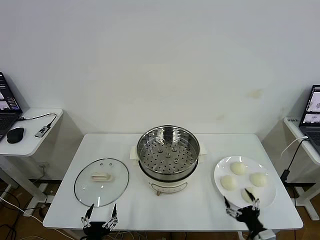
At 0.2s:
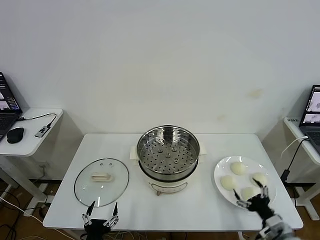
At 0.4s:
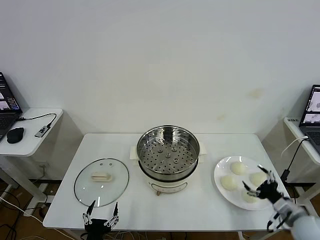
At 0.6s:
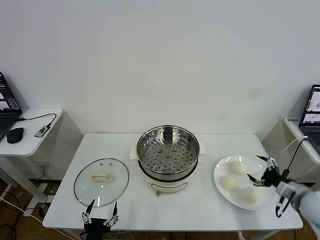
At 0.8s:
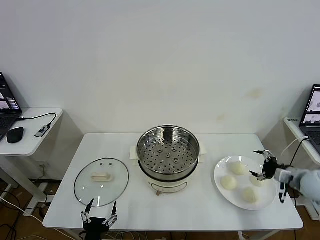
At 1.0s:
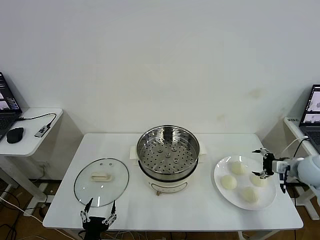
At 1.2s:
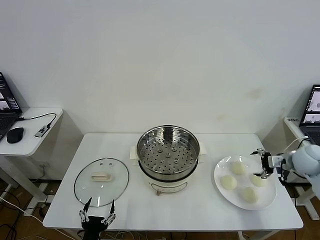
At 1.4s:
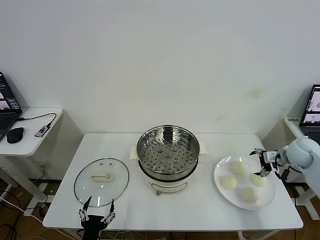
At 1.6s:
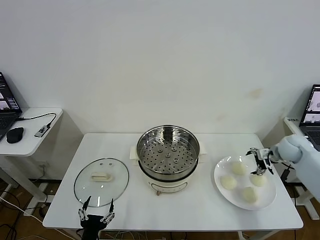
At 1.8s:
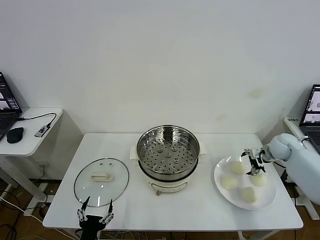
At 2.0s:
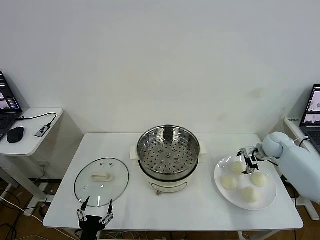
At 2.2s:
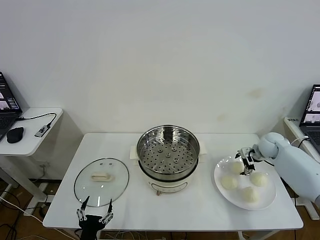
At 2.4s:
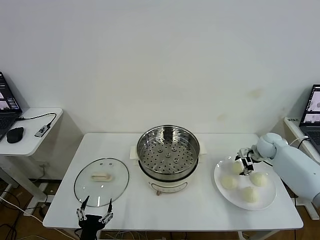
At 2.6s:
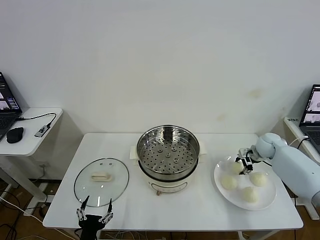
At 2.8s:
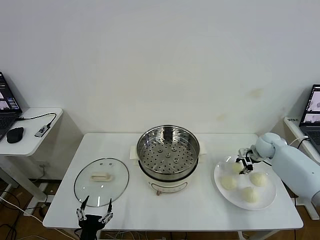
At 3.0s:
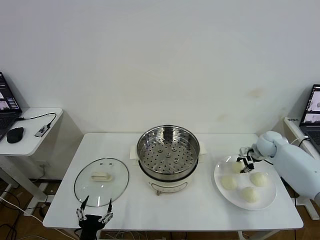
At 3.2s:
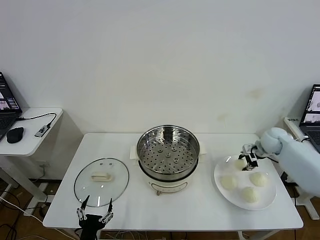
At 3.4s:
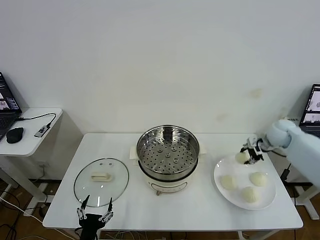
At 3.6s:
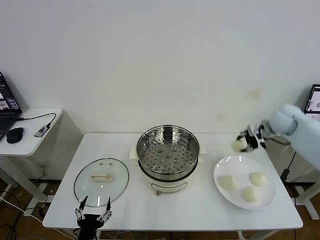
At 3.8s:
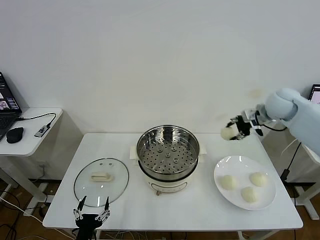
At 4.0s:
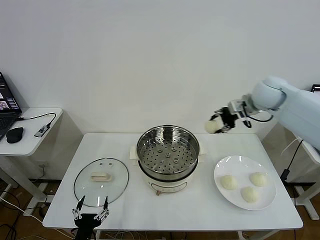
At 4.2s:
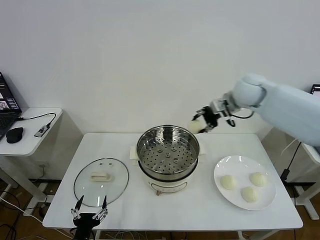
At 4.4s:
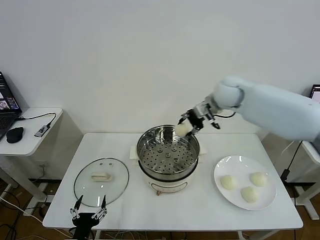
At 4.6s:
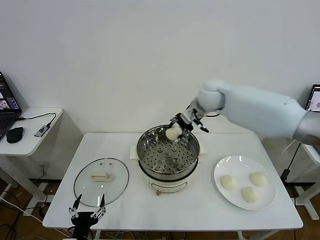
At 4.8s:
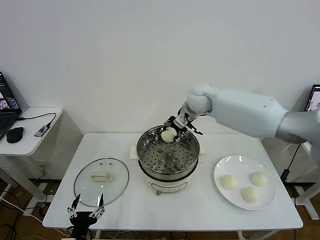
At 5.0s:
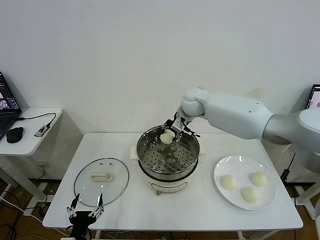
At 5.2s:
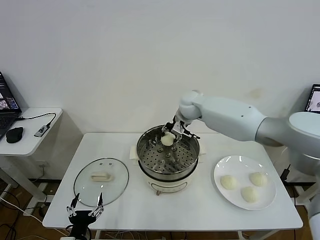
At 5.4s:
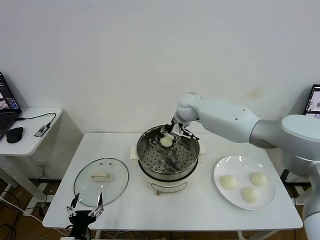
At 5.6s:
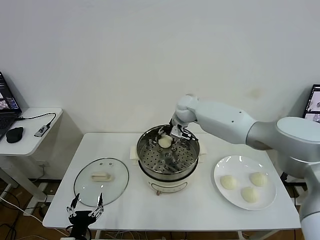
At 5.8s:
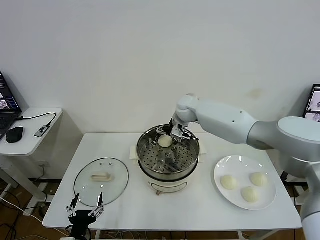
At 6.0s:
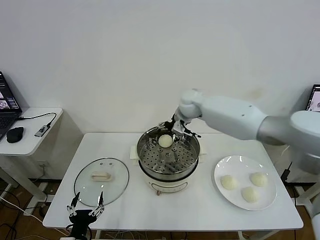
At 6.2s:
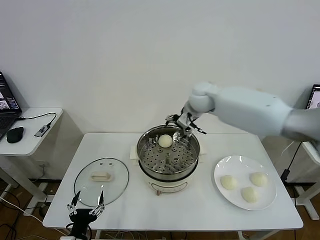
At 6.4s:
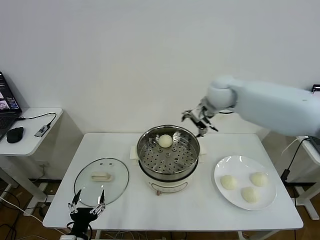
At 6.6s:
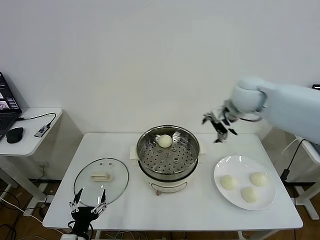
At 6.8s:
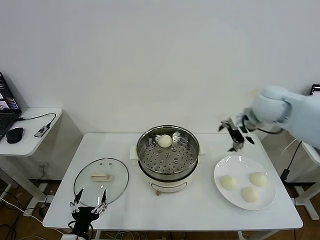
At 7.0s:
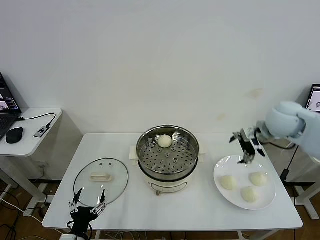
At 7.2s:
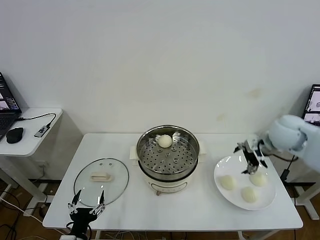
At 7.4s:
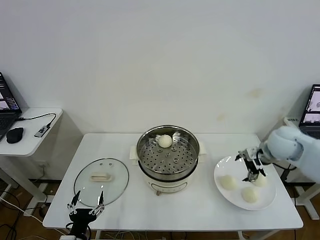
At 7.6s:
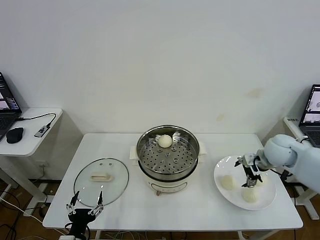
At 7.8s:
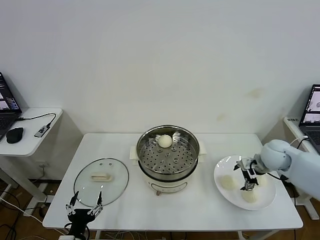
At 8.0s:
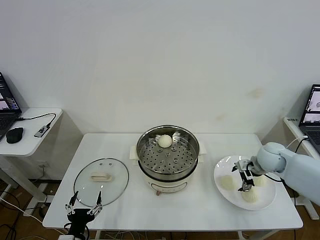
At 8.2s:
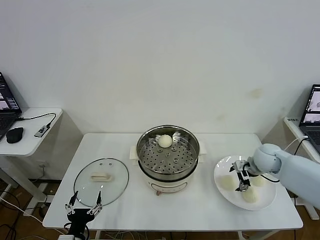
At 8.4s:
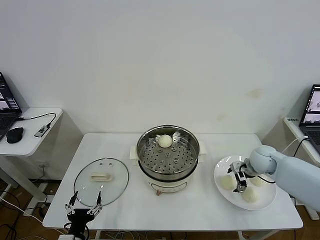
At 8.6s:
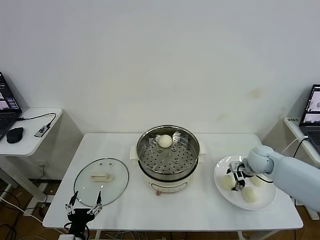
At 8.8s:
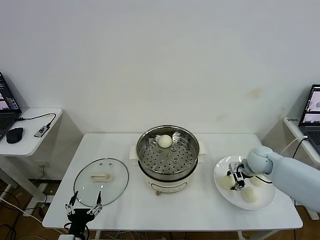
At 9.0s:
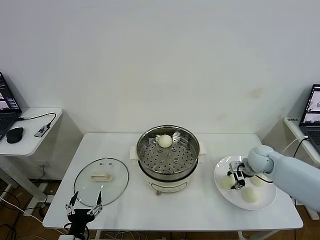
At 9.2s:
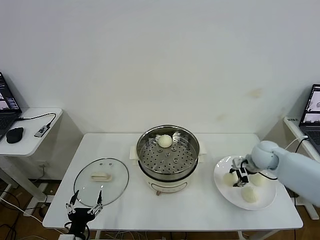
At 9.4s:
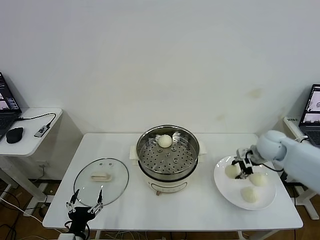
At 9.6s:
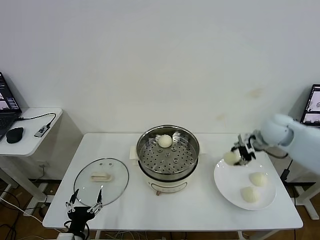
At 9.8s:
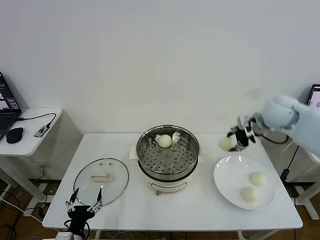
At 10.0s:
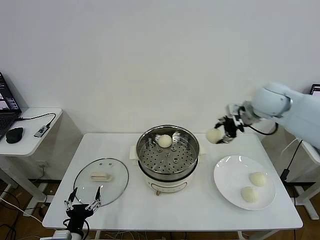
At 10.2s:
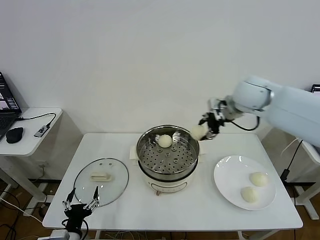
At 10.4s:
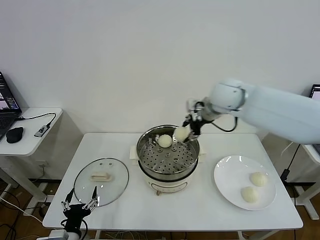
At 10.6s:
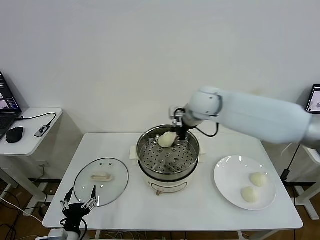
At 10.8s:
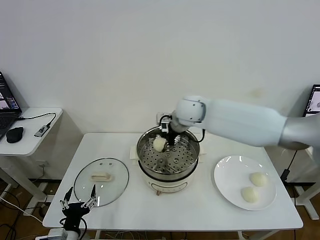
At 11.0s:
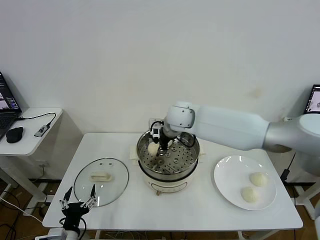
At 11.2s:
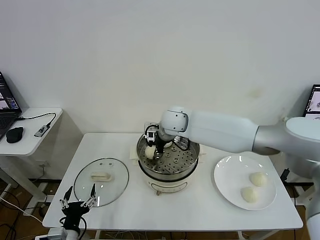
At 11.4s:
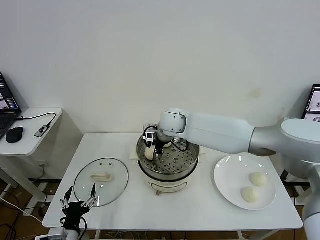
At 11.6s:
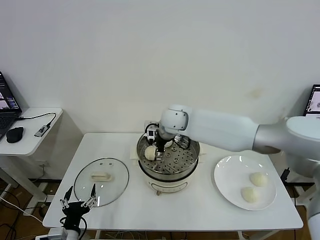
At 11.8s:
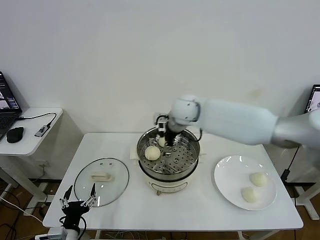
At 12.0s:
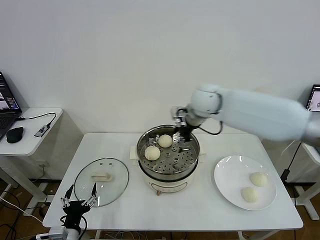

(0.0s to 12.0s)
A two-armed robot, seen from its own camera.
Task of the whole recording: take steamed baozi put them in steamer then cover it.
Step, 0.0s - 2.6s: Grasp the baozi in the plate with right gripper.
Step, 3.0s - 5.8s: Place the baozi on the steamer with right gripper.
Step, 6.0s - 8.8s: Grasp the baozi in the plate with right gripper.
Step, 9.0s - 11.4s: Place the baozi on the steamer with right gripper.
1.6s - 3.0s: The right gripper closes up.
3.0s - 4.4s: The right gripper goes approximately 30 cm to the left and upward.
4.4s - 6.0s: The right gripper opens its fingers.
6.0s - 7.6s: The right gripper heads to the right, backward and downward, covering roughly 30 cm.
7.6s - 9.0s: The right gripper travels downward by approximately 5 cm, and closes its fingers.
9.0s - 10.4s: The right gripper moves upward and to the left, approximately 30 cm.
10.4s - 12.0s: The right gripper goes to the left and returns, about 10 cm each way, and opens up.

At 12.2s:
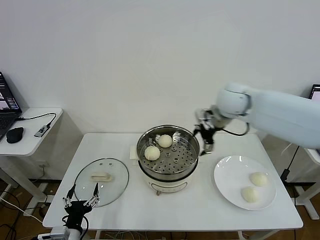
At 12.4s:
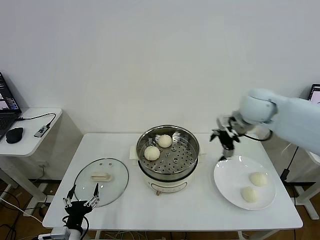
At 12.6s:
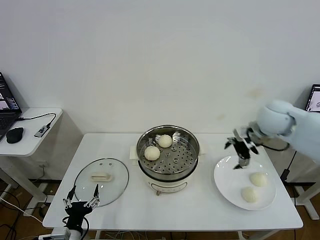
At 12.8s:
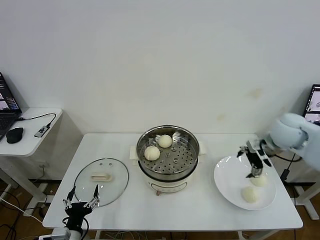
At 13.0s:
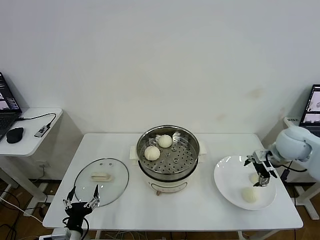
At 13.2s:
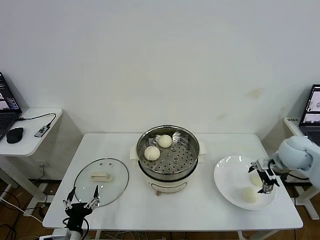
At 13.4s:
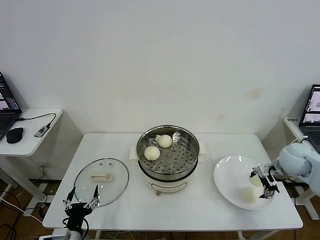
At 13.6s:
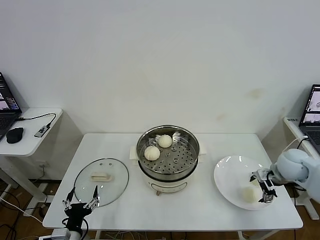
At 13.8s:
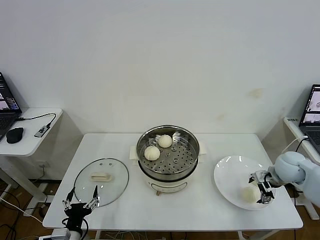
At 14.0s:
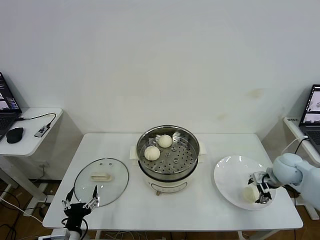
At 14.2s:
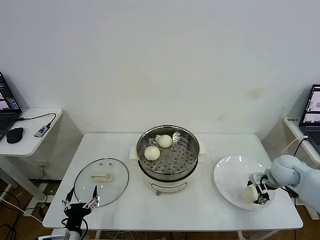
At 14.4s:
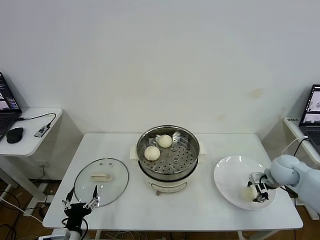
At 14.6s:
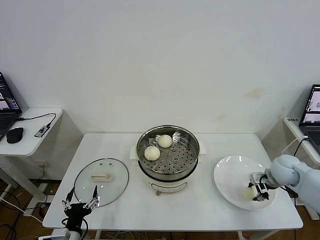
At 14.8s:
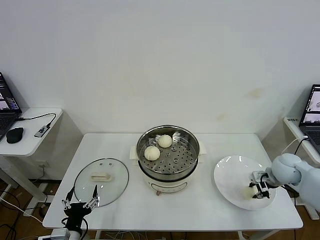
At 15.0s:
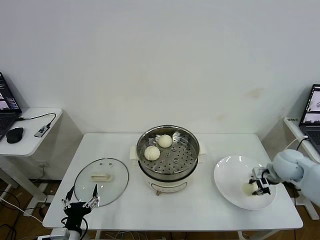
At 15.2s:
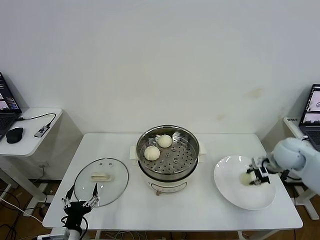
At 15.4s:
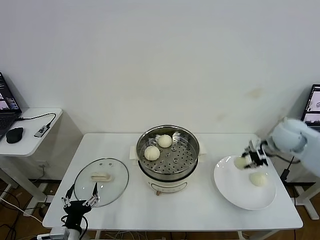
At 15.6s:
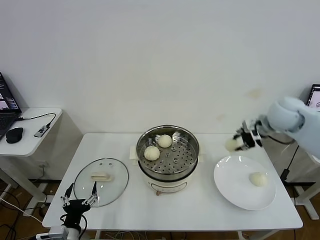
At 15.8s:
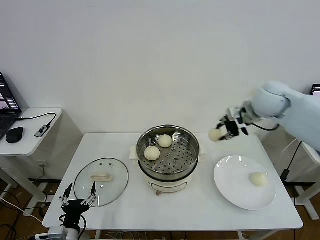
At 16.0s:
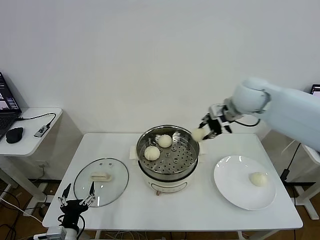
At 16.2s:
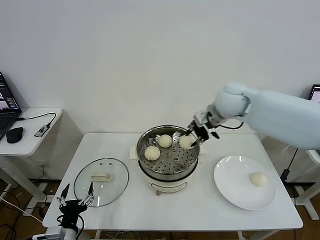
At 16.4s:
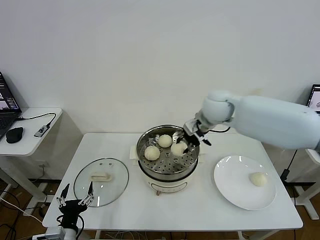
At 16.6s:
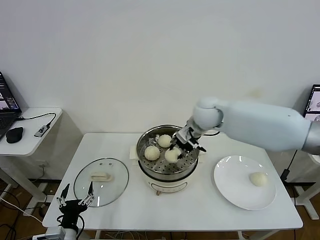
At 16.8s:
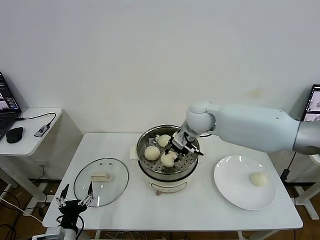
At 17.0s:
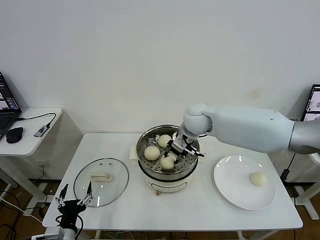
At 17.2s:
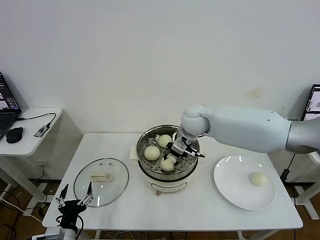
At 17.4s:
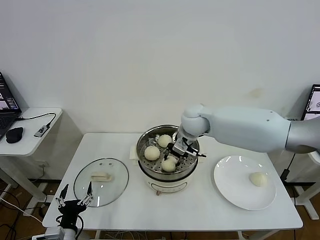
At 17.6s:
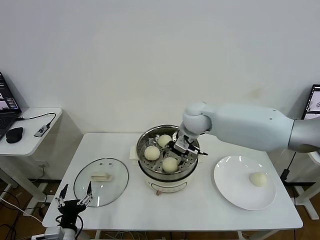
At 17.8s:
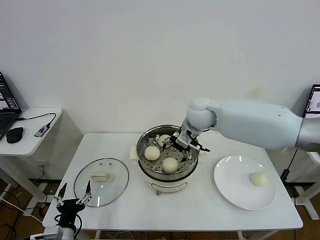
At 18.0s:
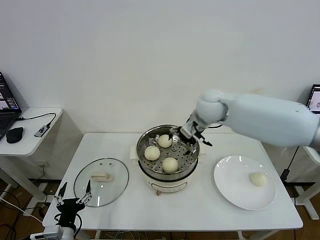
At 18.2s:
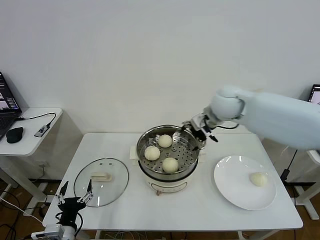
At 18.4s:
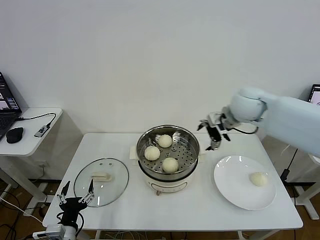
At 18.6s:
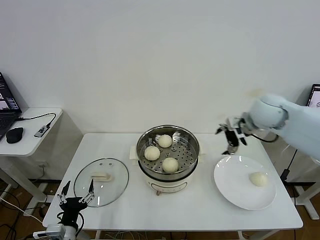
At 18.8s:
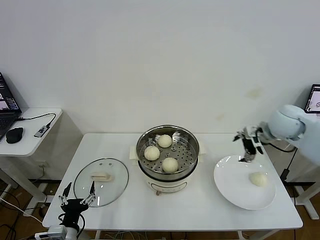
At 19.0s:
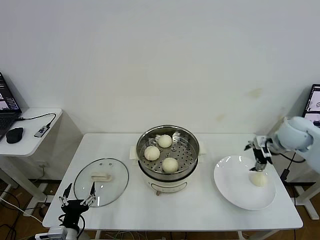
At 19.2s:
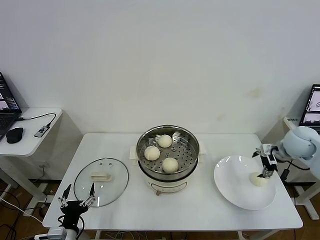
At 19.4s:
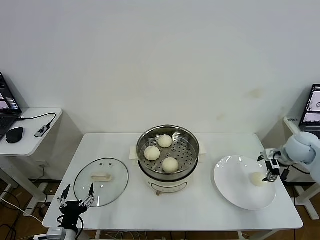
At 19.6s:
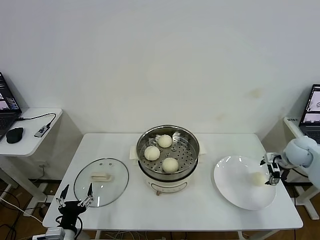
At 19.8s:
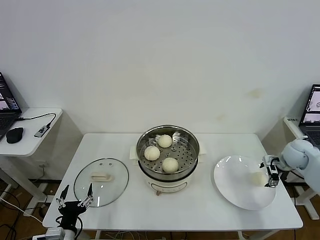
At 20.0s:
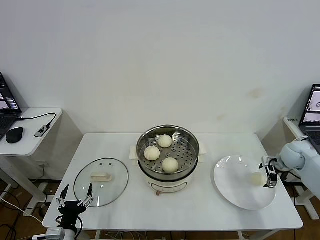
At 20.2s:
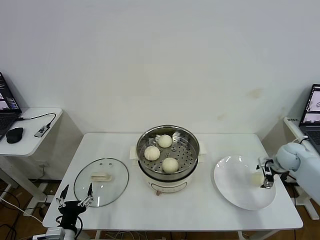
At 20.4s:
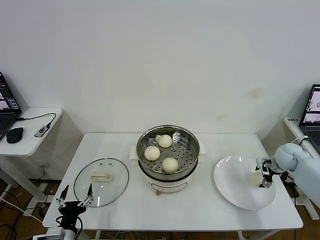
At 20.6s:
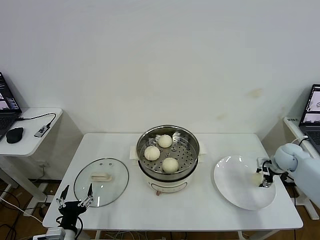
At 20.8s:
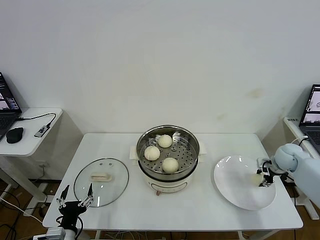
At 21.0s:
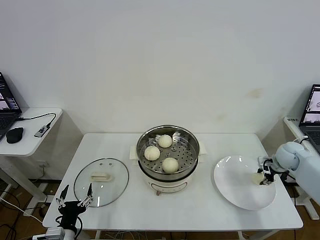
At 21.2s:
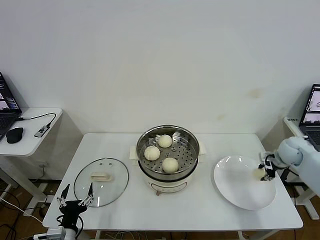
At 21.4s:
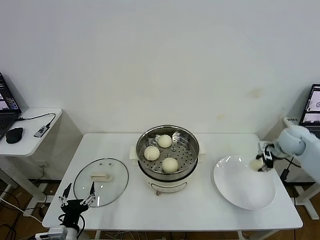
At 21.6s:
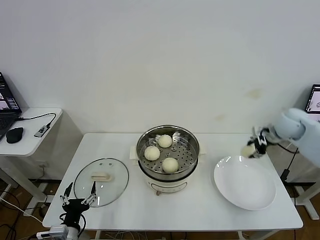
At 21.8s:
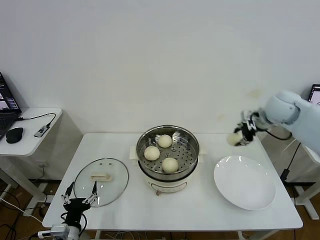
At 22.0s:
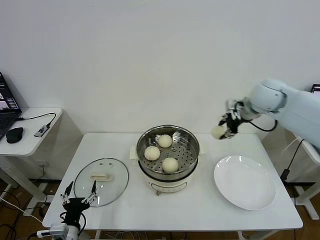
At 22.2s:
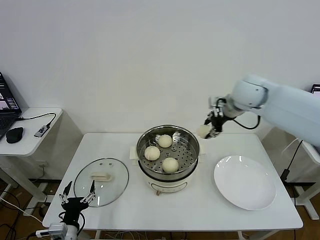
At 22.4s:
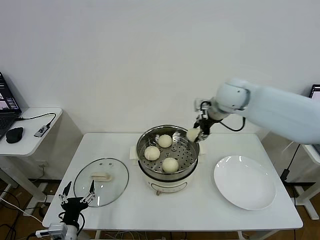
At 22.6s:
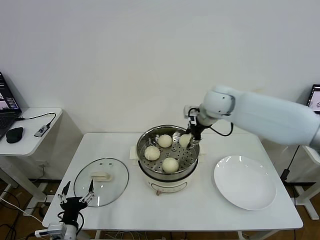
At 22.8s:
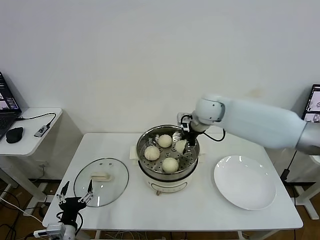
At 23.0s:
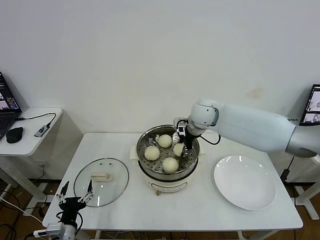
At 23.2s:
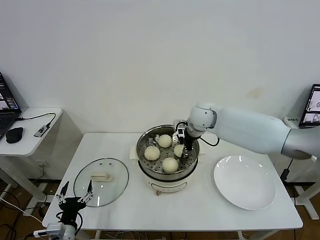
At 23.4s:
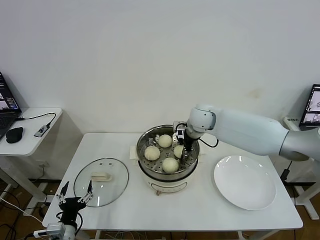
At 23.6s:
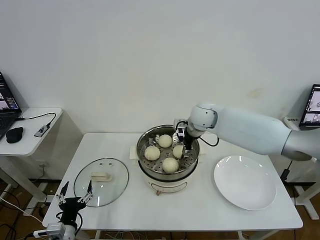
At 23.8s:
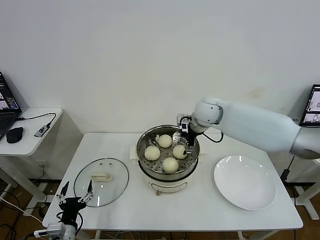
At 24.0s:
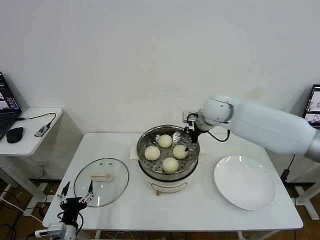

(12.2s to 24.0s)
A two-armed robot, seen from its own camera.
Task of the whole recording: take steamed baozi put them in steamer then cover it.
Step, 12.2s - 14.4s: Grasp the baozi in the plate with right gripper.
Step, 14.6s - 17.6s: Place the baozi on the steamer with right gripper.
Step, 17.8s - 20.8s: Grasp the baozi in the plate with right gripper.
Step, 21.0s - 23.6s: Place the baozi on the steamer with right gripper.
12.2s - 13.6s: The right gripper heads to the right, downward and backward, covering approximately 30 cm.
13.6s - 15.2s: The right gripper goes some 5 cm upward, and closes its fingers.
15.2s - 16.6s: The right gripper is displaced to the left by approximately 25 cm.
16.6s - 18.2s: The right gripper heads to the right, covering about 5 cm, and opens up.
18.2s - 19.6s: The right gripper is displaced to the right and downward by approximately 30 cm.
19.6s - 21.0s: The right gripper closes up.
21.0s - 22.6s: The right gripper moves to the left and upward, roughly 35 cm.
22.6s - 24.0s: The right gripper opens its fingers.
